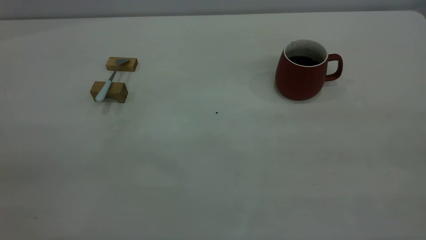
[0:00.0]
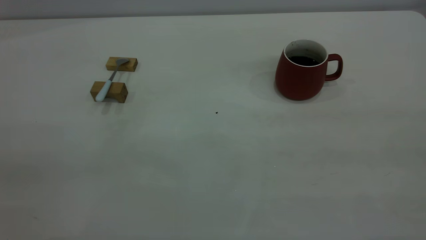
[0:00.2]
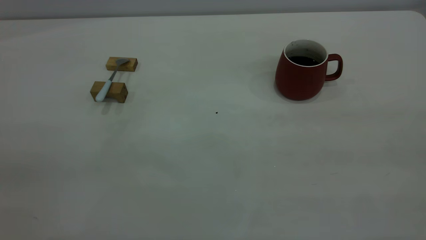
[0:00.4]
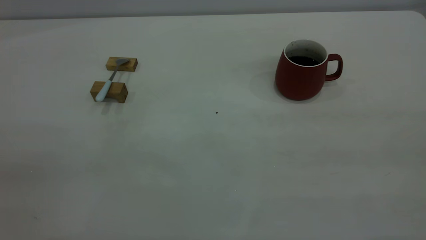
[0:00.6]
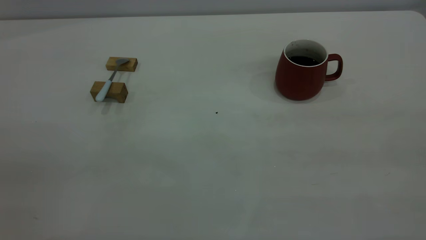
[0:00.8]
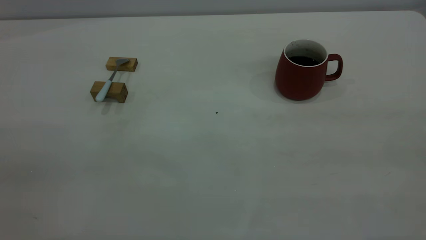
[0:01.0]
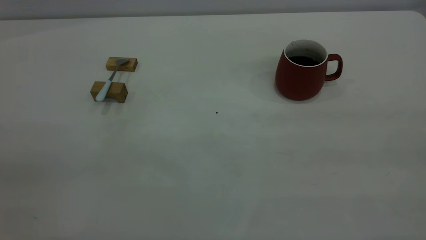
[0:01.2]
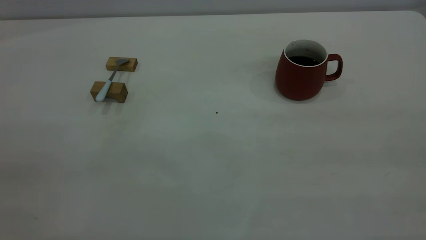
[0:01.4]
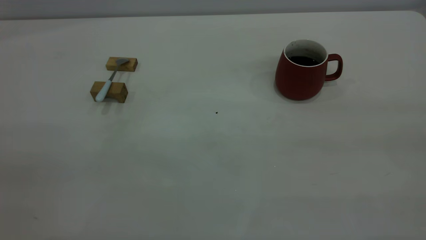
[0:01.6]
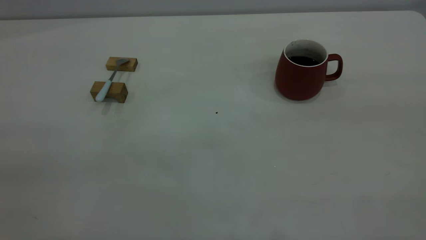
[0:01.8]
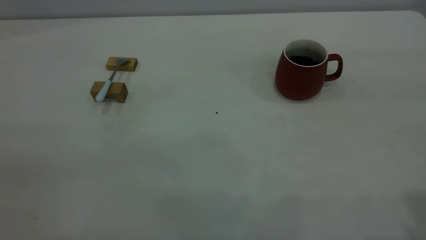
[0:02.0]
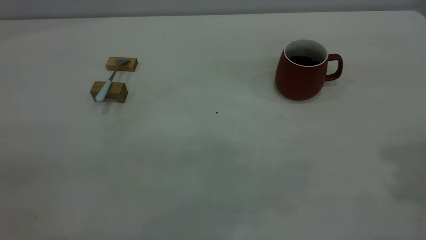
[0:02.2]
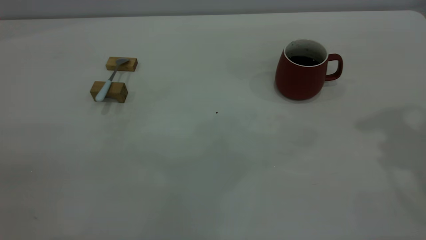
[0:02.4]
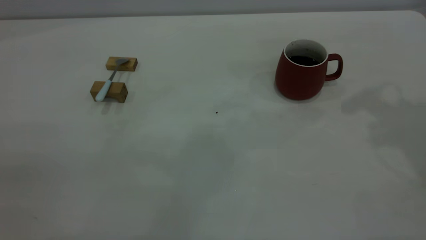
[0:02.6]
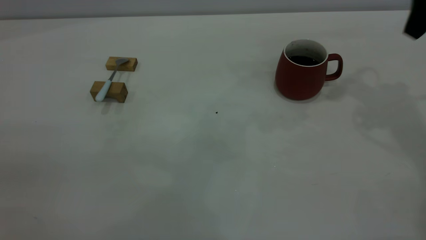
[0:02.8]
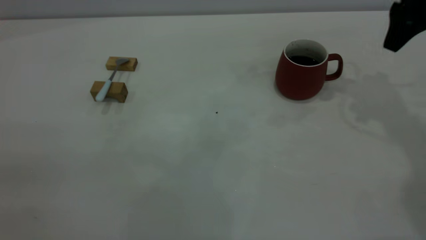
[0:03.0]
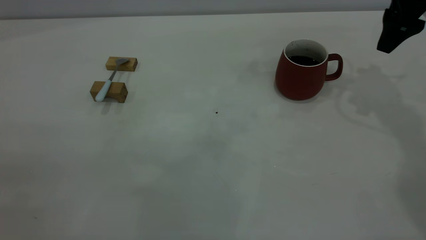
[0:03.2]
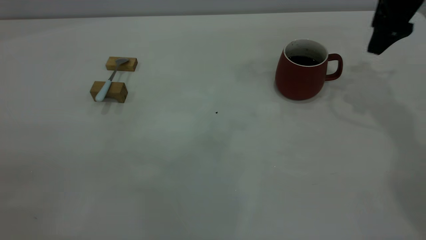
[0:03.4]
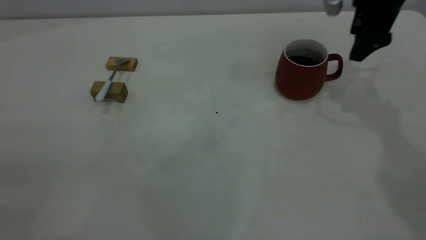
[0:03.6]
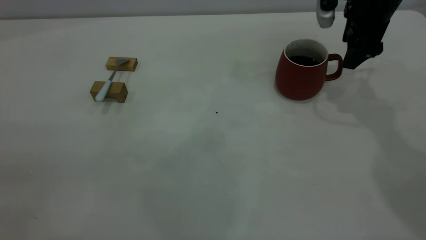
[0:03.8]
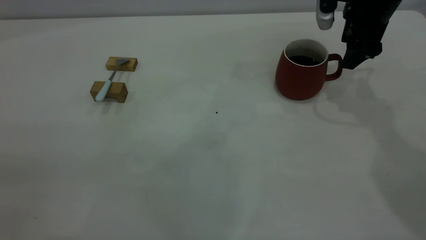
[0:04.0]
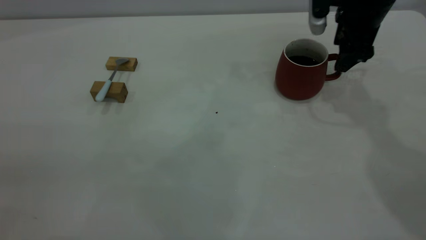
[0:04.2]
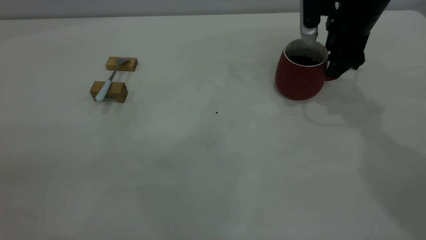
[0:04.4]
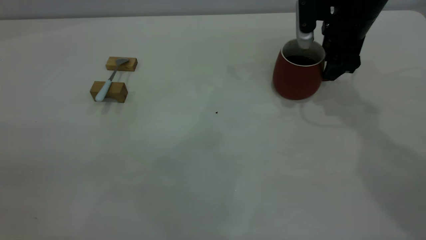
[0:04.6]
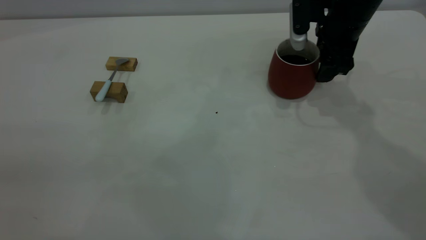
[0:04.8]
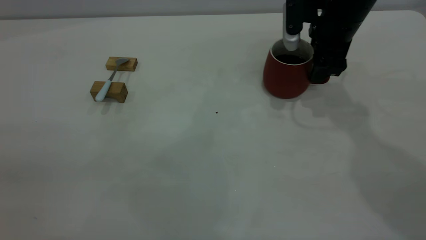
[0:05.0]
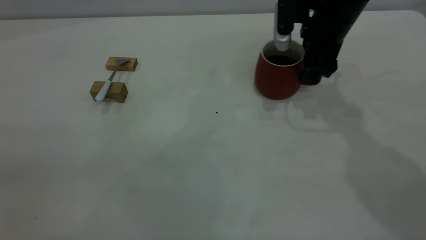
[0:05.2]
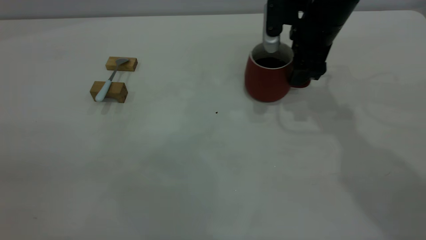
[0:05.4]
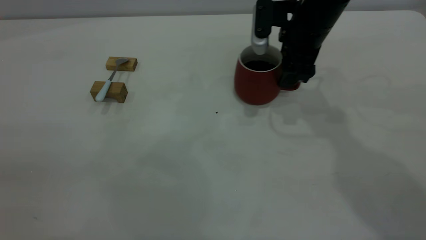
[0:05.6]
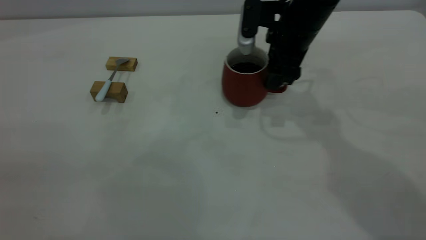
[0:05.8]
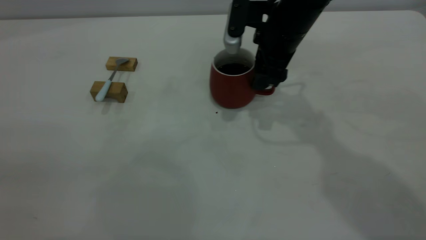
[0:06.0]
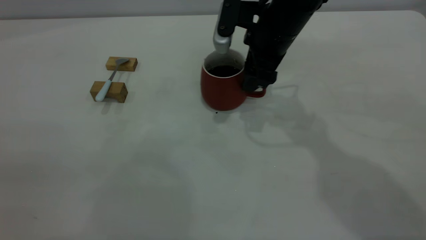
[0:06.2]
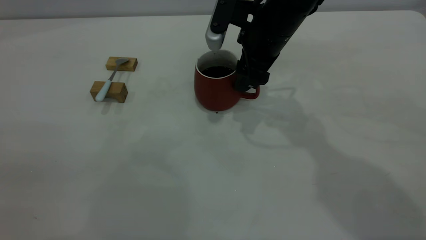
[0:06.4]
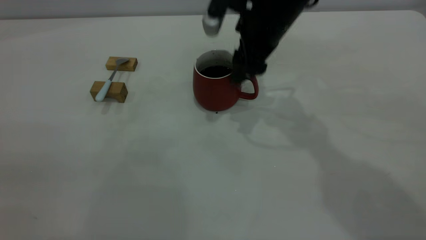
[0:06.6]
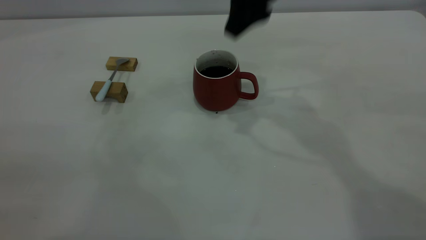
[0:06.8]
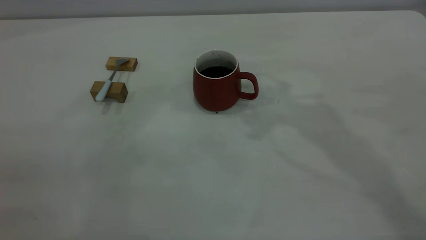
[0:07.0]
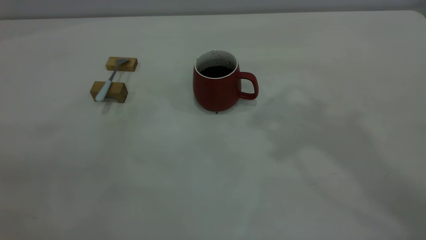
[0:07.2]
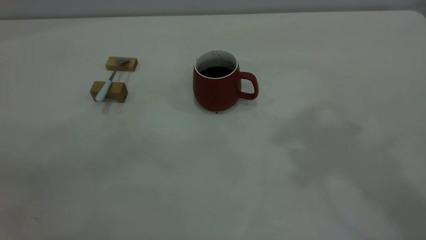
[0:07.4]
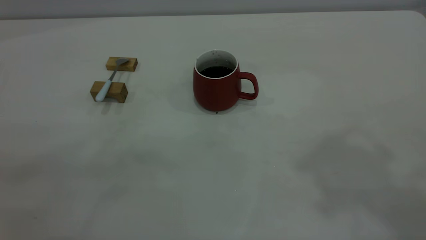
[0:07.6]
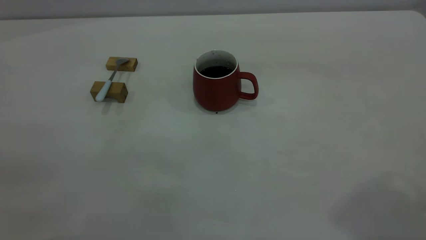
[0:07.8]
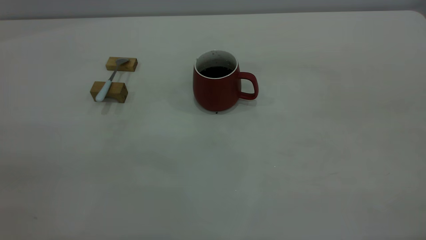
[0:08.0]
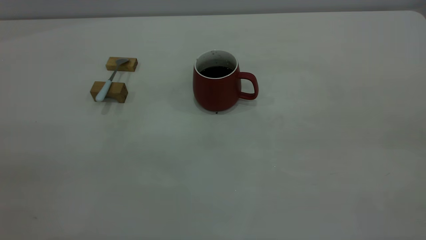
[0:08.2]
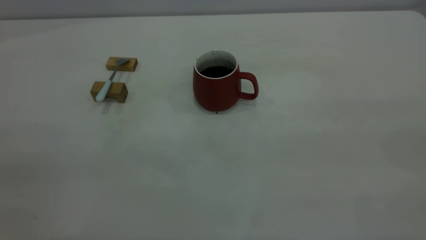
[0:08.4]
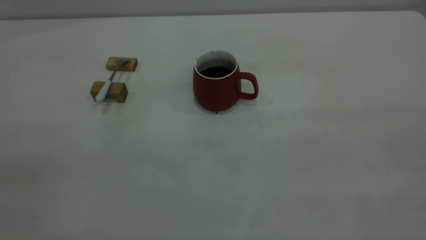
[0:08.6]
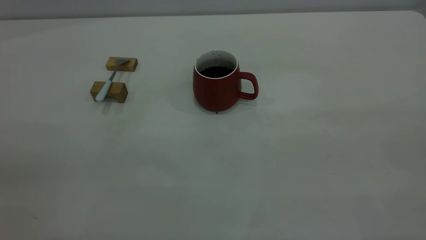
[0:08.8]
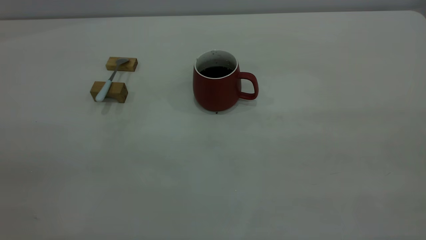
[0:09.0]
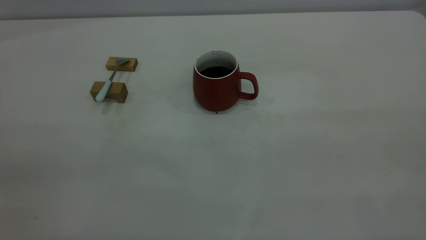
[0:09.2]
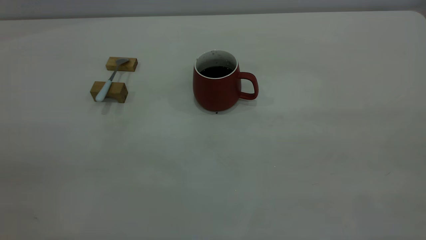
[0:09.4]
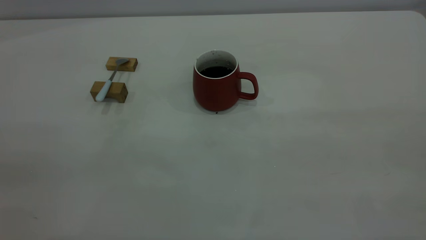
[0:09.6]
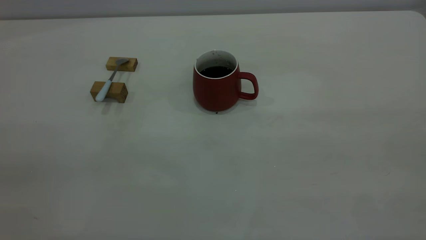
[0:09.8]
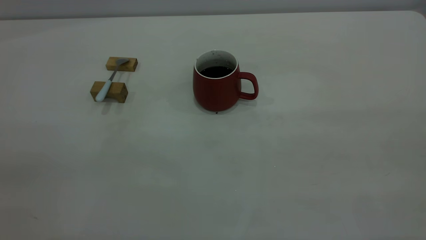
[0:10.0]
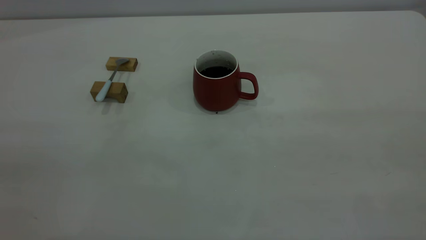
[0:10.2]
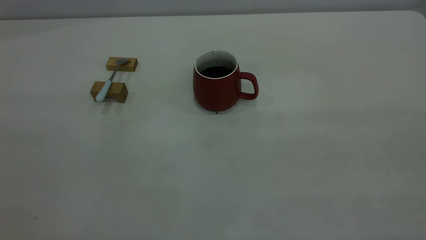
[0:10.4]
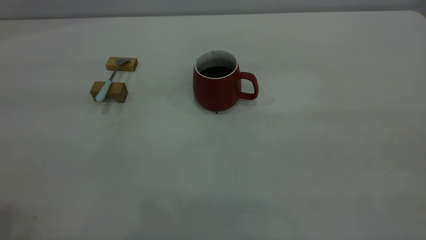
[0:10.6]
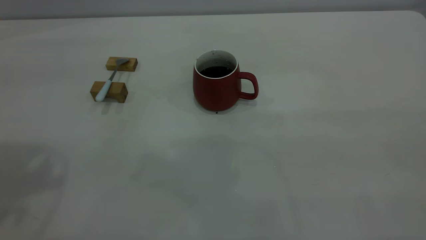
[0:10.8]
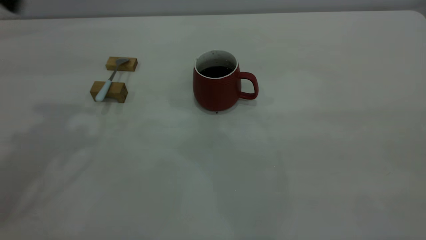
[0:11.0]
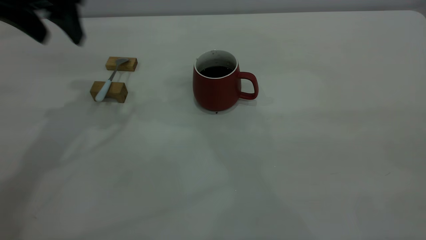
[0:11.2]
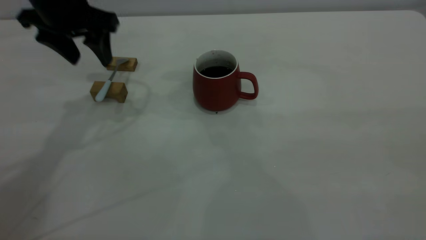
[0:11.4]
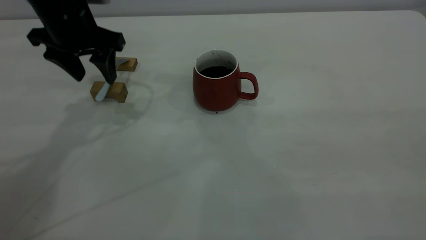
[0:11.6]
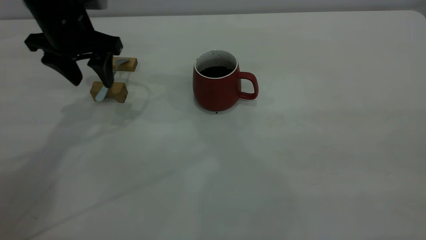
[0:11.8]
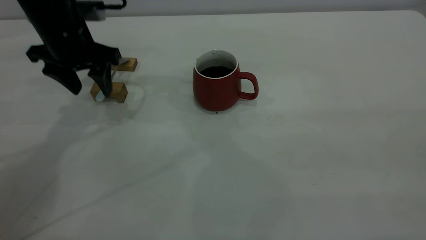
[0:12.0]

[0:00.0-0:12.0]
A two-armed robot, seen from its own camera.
Step, 0:00.0 to 0:06.6: Move the cup with coffee to the center of view.
0:01.6 to 0:03.0: The right gripper goes about 40 cm forward, and opens.
0:03.0 to 0:04.4: The right gripper heads downward and to the left, covering approximately 10 cm.
0:04.4 to 0:06.0: The right gripper shifts about 10 cm to the left.
0:06.0 to 0:07.6: The right gripper travels upward and backward by some 40 cm.
0:10.4 to 0:12.0: The left gripper travels forward and downward by approximately 40 cm.

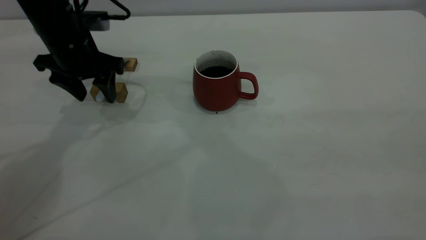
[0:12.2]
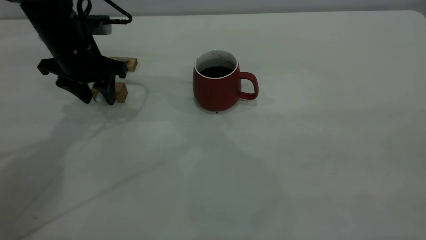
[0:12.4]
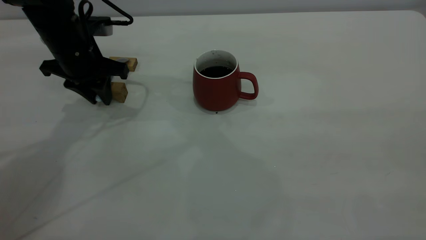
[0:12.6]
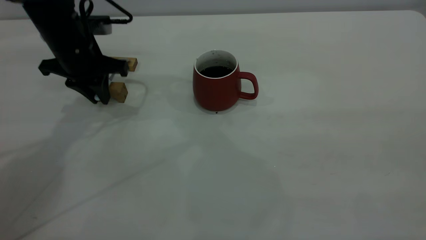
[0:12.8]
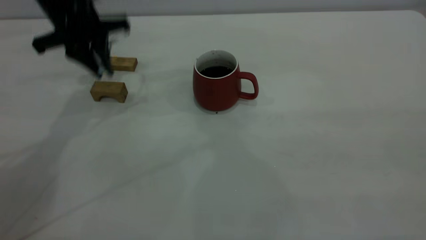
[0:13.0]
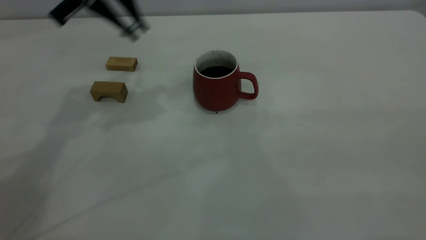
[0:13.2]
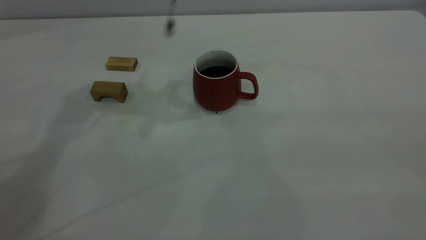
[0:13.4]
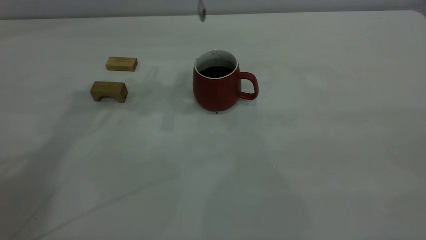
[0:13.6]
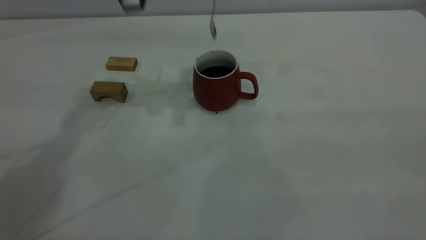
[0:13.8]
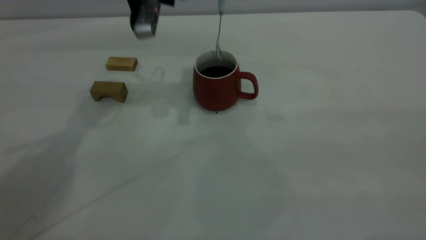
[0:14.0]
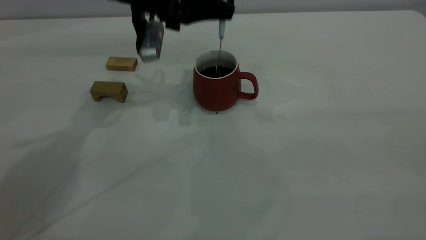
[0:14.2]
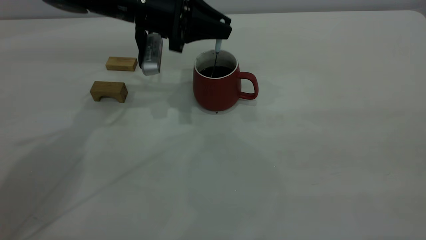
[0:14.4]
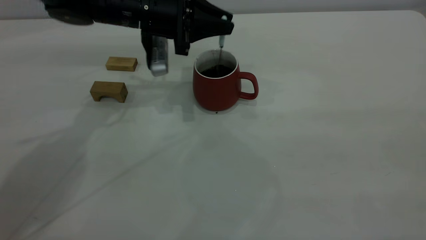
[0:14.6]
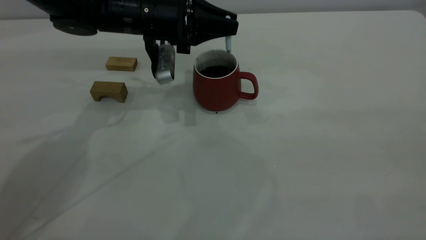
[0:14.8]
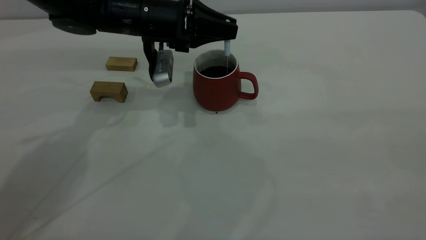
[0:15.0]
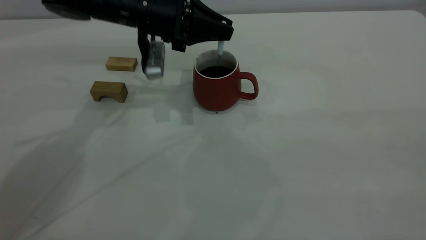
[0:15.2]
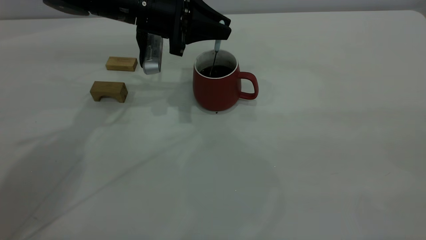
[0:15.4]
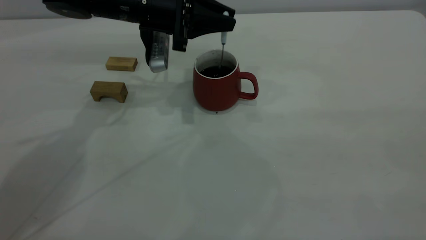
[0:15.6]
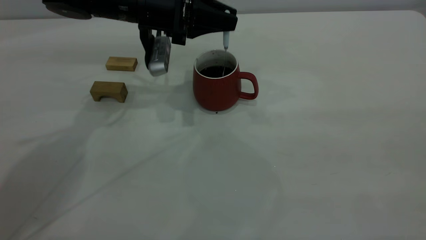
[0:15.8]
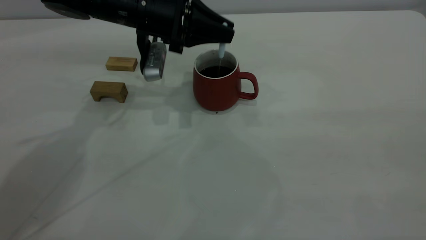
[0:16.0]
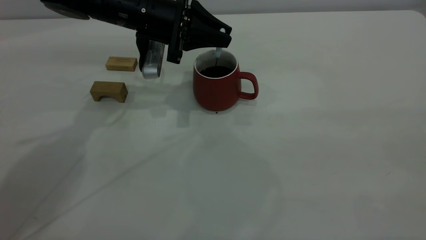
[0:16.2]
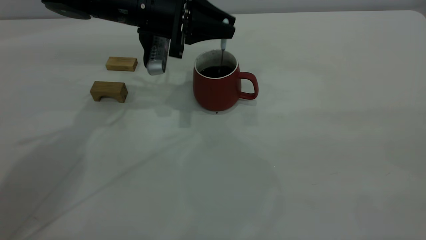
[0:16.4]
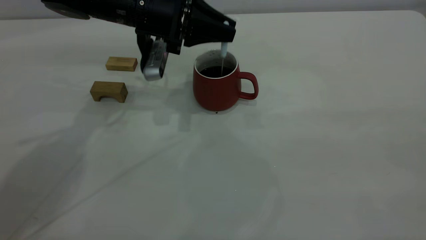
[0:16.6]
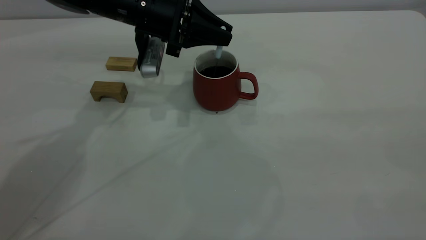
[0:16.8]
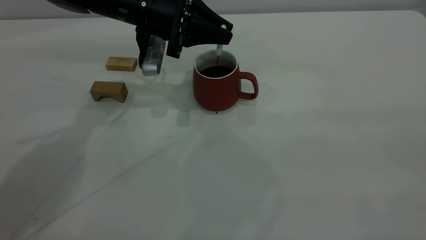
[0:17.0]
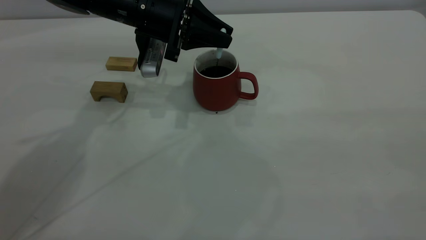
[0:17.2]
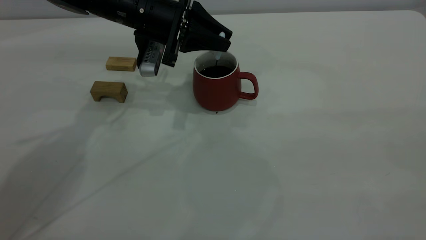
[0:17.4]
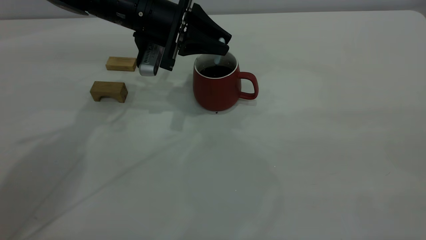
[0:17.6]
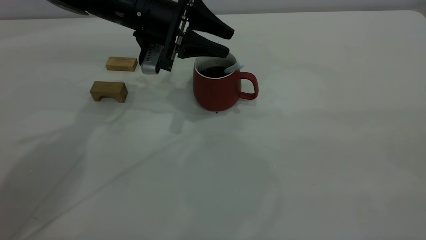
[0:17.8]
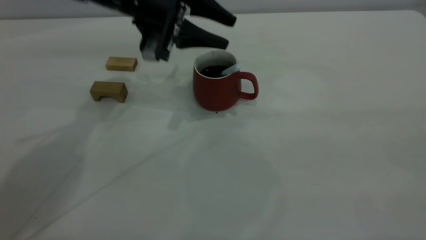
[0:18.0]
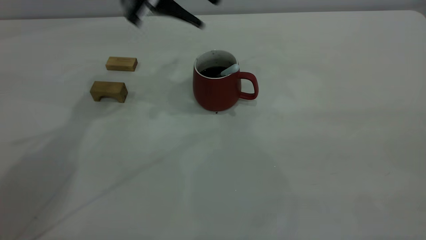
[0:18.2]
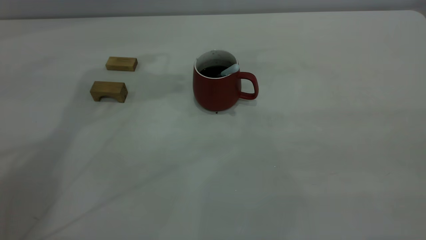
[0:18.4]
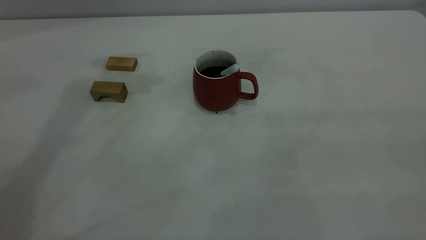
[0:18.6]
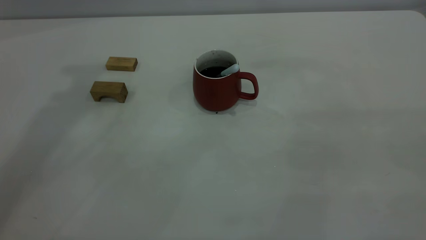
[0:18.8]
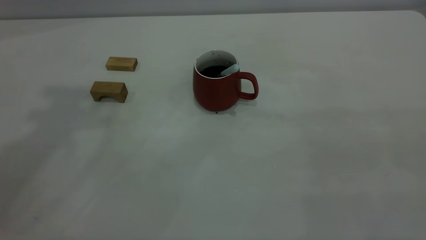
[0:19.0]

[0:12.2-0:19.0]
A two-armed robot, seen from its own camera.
Step, 0:13.2 to 0:18.0: Stir the coffee in the cup.
0:12.2 to 0:13.6: The left gripper heads upward and to the right, covering some 20 cm, and closes its fingers.
0:13.6 to 0:15.0: The left gripper travels downward by about 15 cm.
0:16.2 to 0:17.6: The grippers stay close to where they were, moving slightly.
0:17.6 to 0:19.0: The left gripper shifts some 40 cm upward, and opens its fingers.
